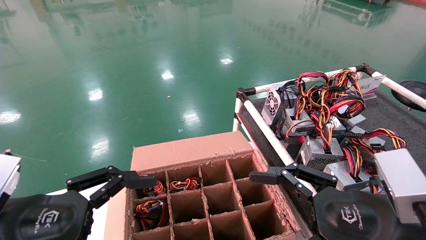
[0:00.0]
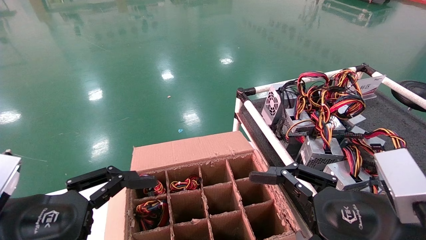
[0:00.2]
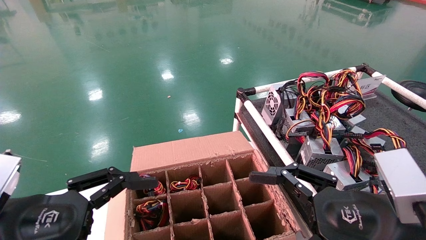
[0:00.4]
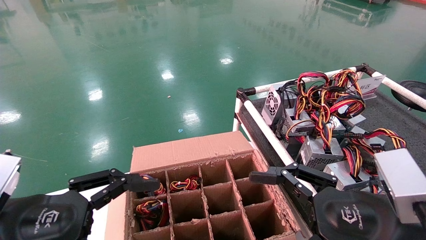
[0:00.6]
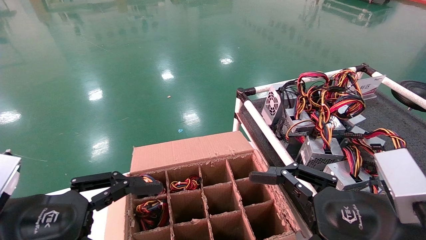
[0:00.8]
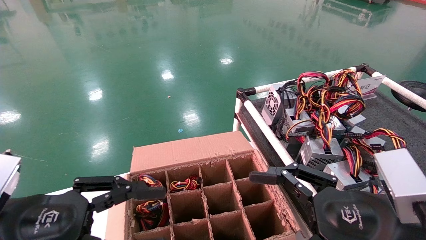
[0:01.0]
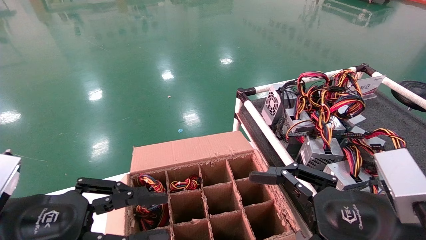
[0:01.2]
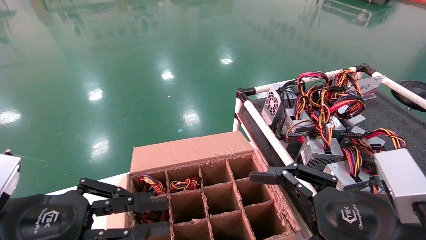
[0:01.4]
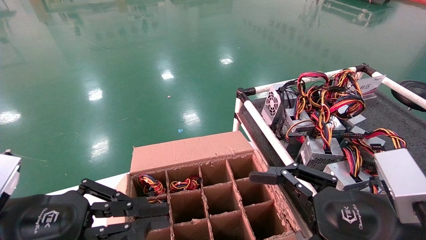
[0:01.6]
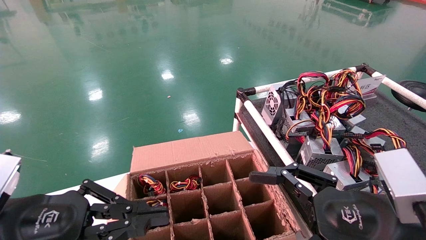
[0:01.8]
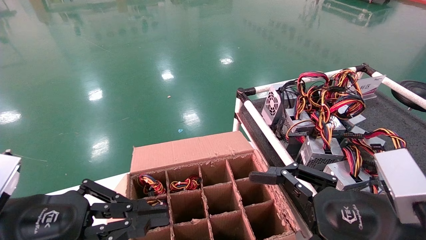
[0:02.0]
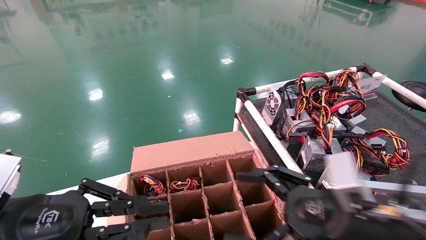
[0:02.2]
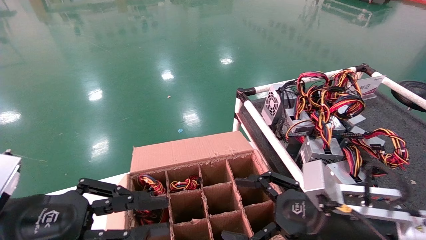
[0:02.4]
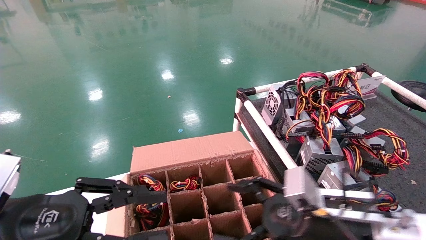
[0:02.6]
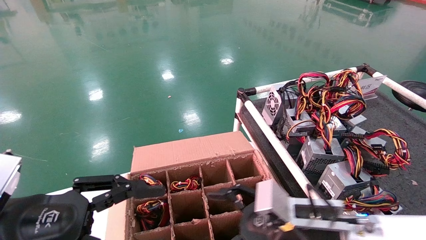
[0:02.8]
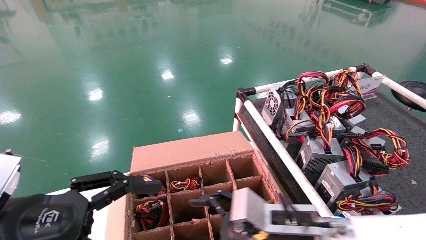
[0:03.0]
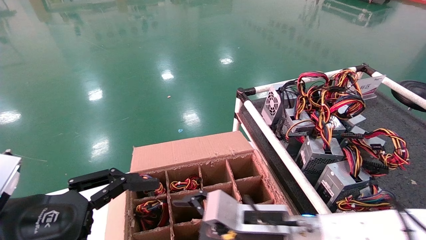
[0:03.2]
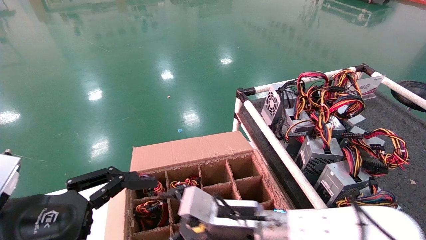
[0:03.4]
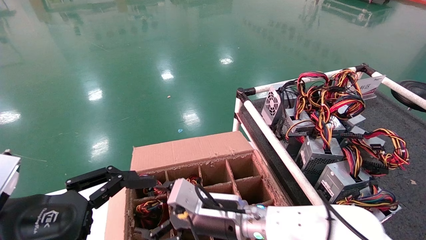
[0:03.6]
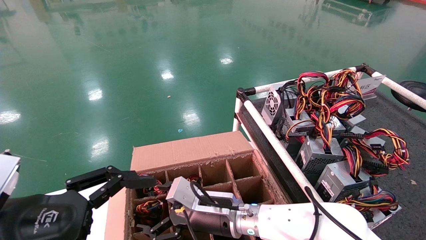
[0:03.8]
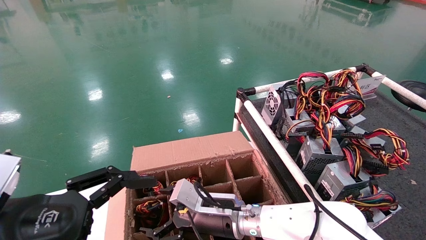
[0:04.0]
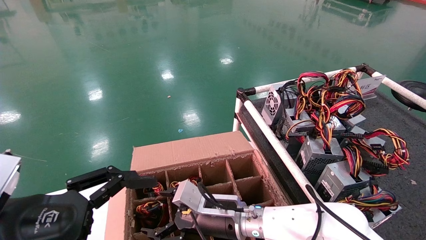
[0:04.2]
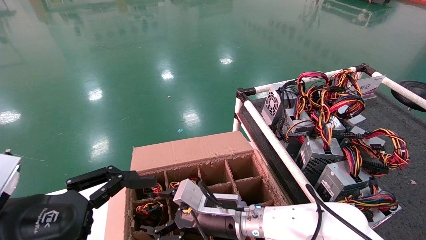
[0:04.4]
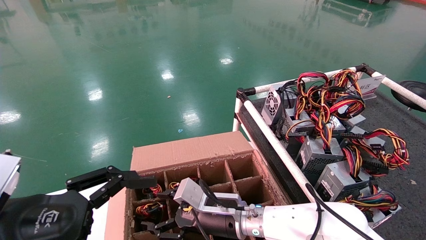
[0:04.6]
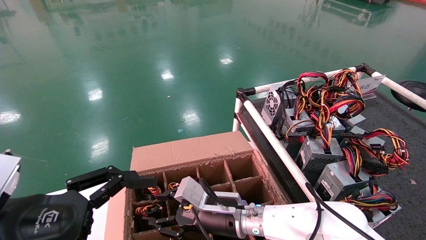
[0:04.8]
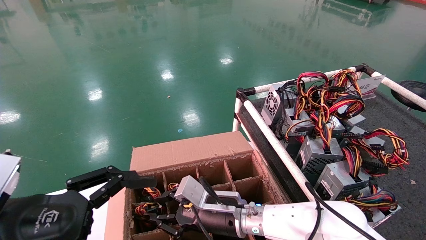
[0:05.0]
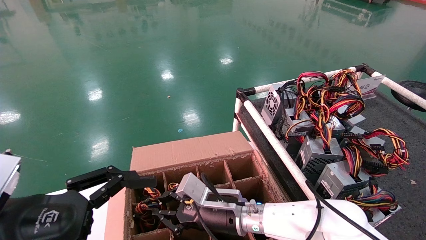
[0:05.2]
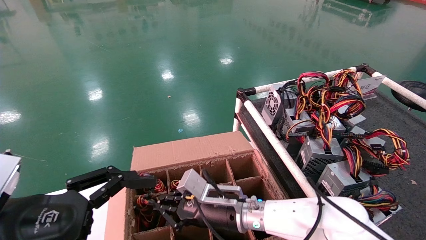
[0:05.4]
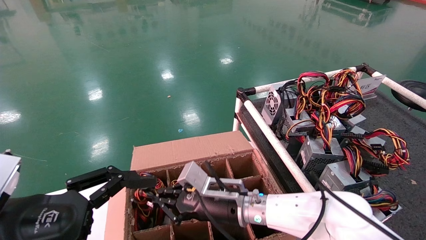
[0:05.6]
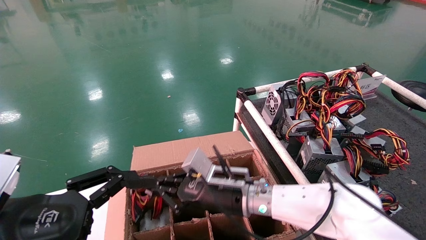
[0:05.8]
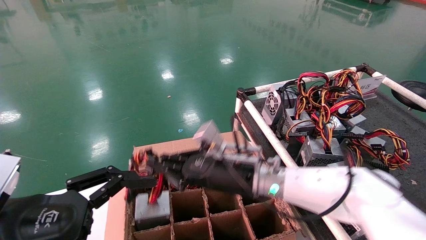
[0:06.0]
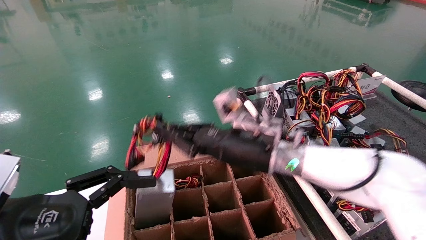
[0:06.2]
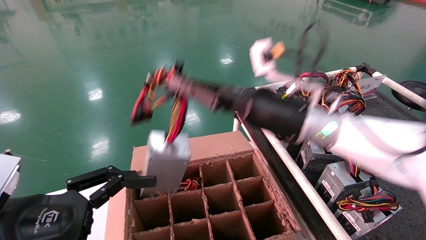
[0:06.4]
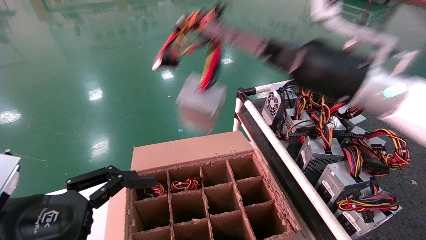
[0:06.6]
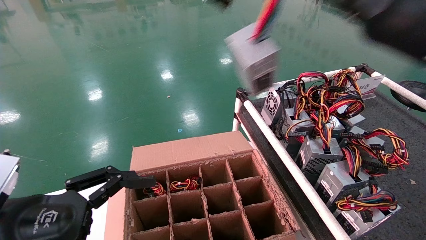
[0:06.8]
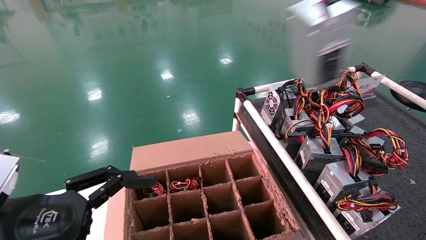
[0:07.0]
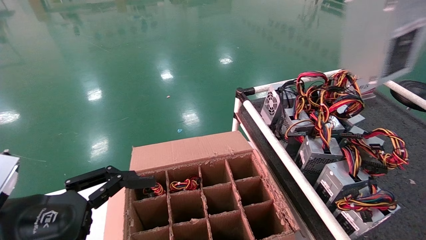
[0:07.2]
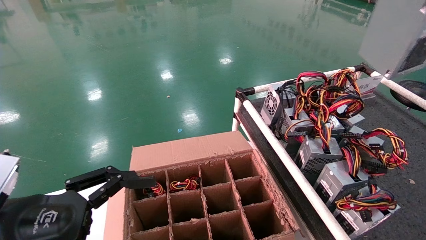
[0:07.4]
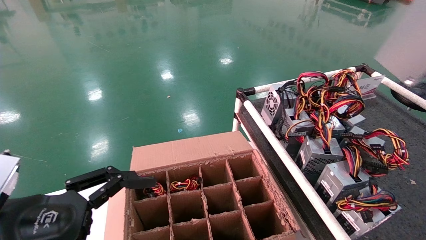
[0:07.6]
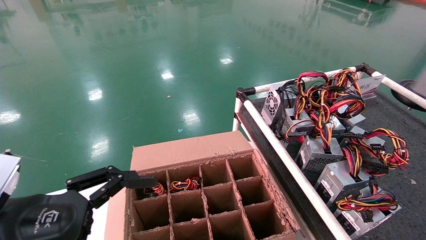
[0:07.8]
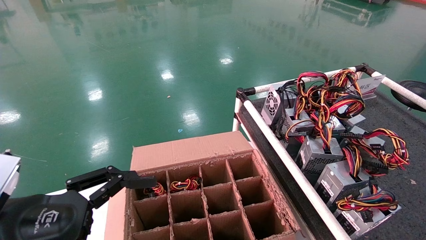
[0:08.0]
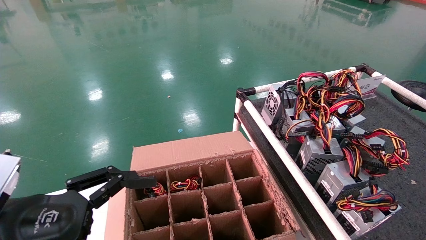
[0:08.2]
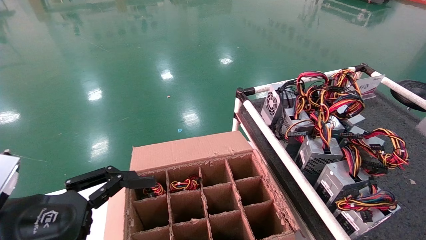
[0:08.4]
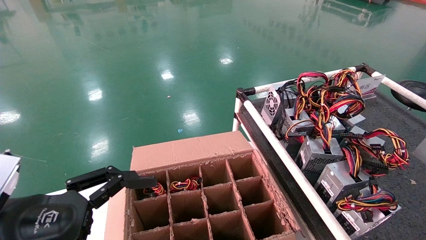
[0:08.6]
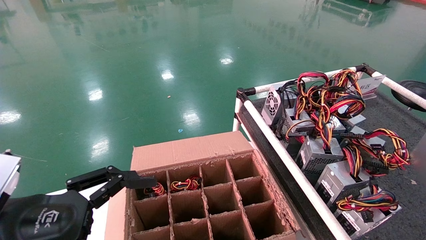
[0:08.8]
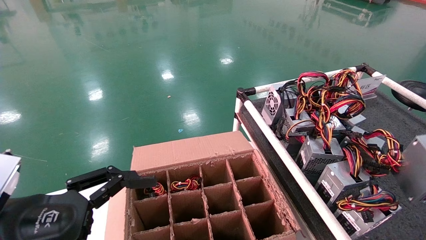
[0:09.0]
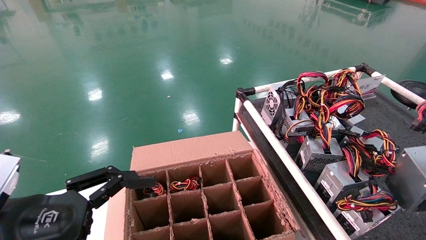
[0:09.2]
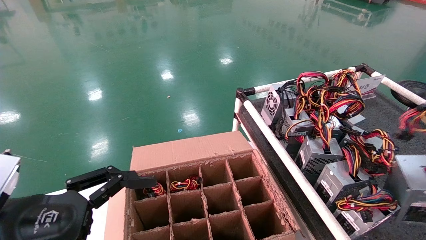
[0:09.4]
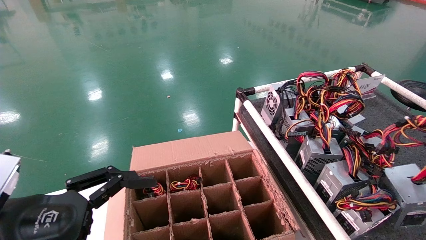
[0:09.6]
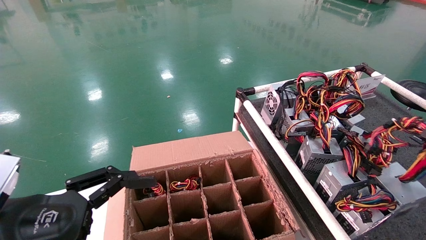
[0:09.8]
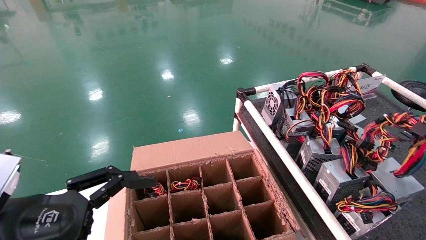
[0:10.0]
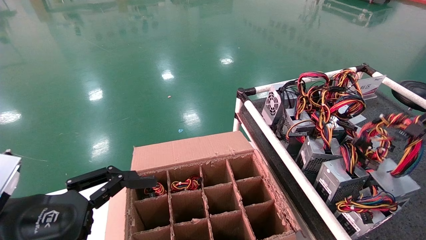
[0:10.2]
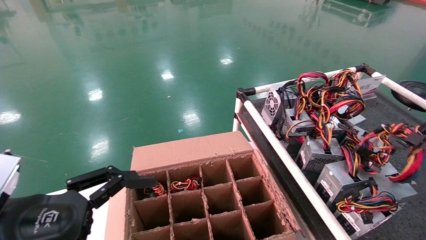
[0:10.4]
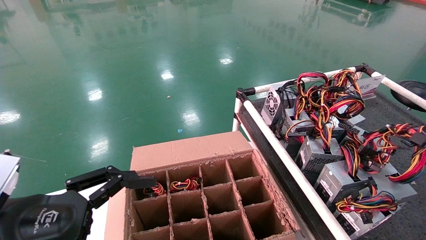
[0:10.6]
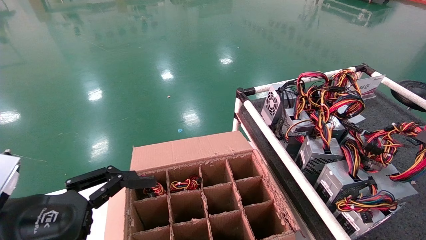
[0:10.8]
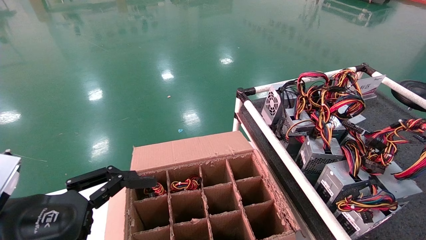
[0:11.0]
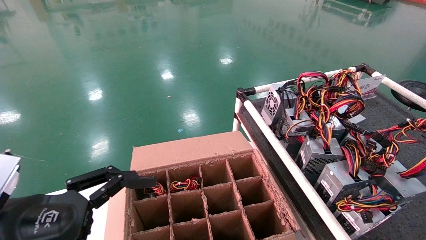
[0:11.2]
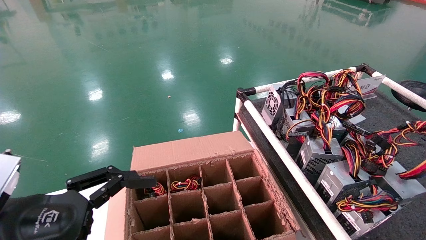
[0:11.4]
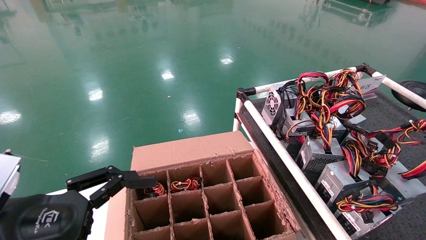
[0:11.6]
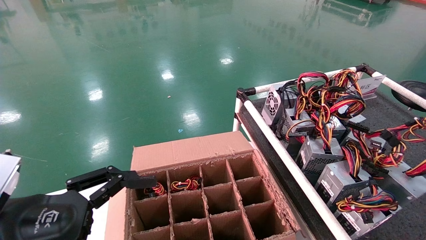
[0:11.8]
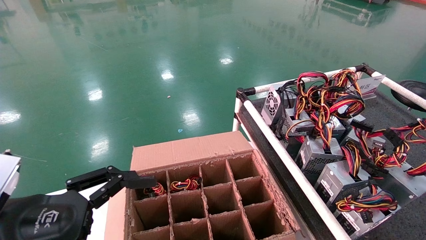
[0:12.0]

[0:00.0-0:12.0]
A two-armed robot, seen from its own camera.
Step, 0:02.4 to 0:05.6: Grab and lift the power supply from the large box.
0:00.0 to 0:01.6: The left gripper closes up.
0:01.6 to 0:03.0: The right gripper is displaced to the left, forward and downward by roughly 15 cm, while the left gripper opens its fingers.
0:03.0 to 0:04.4: The left gripper opens up. The right gripper moves to the left and forward, approximately 15 cm.
0:04.4 to 0:06.0: The right gripper is displaced upward by about 10 cm, and closes up.
0:06.0 to 0:07.6: The right gripper shifts approximately 50 cm to the right, backward and upward.
0:07.6 to 0:09.0: The right gripper heads downward, covering some 20 cm.
0:09.0 to 0:10.4: The right gripper shifts some 15 cm forward and downward.
0:10.4 to 0:12.0: The grippers make only small movements.

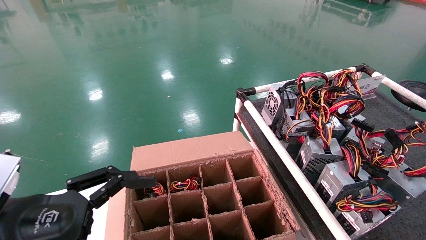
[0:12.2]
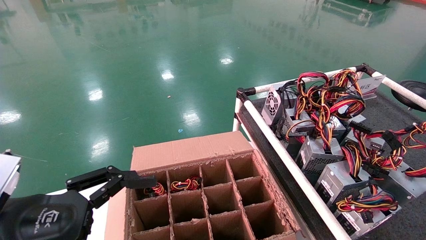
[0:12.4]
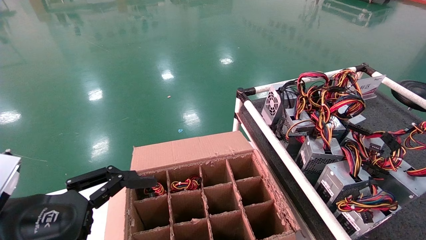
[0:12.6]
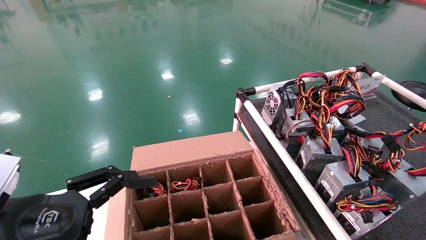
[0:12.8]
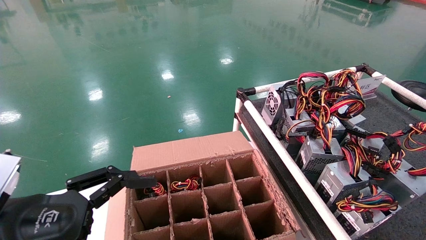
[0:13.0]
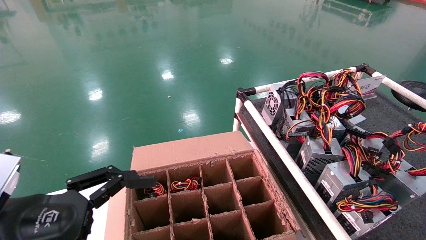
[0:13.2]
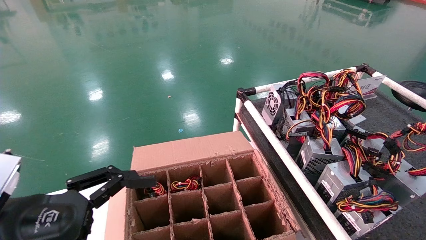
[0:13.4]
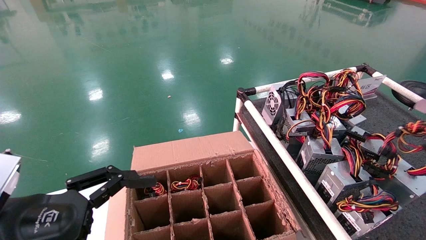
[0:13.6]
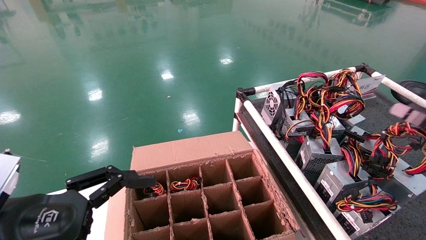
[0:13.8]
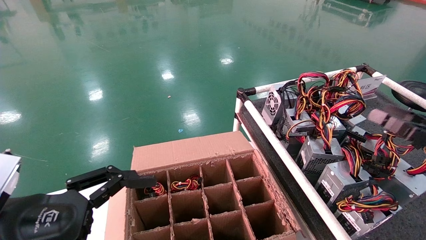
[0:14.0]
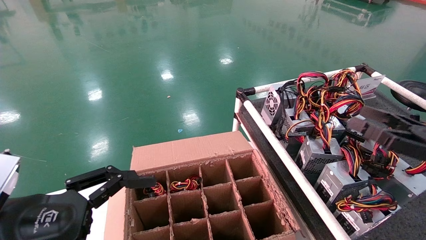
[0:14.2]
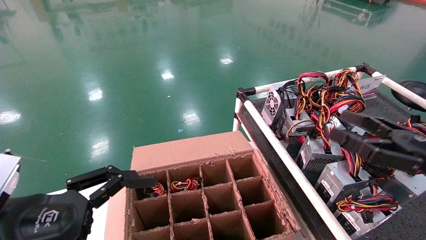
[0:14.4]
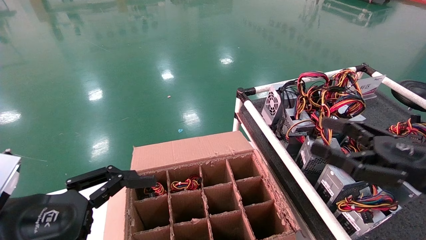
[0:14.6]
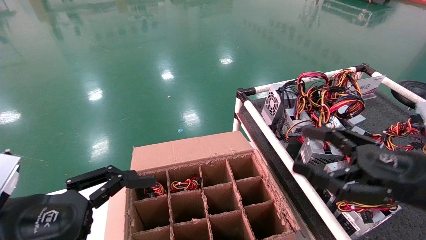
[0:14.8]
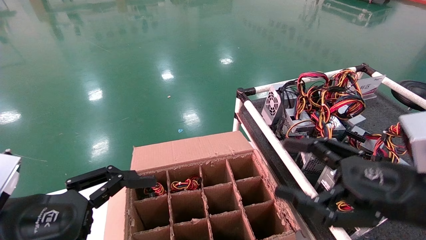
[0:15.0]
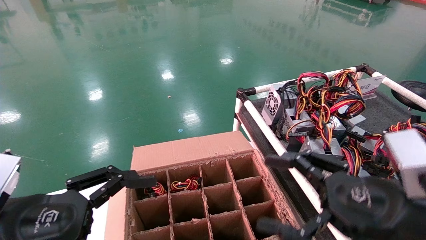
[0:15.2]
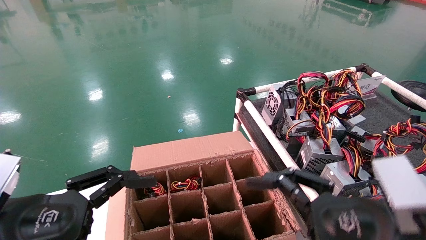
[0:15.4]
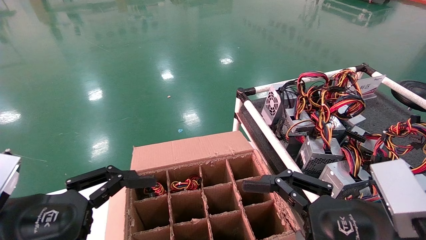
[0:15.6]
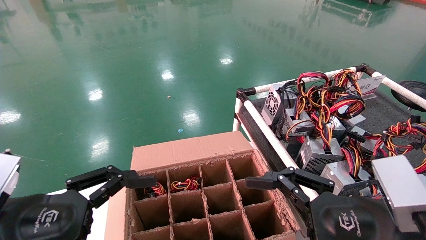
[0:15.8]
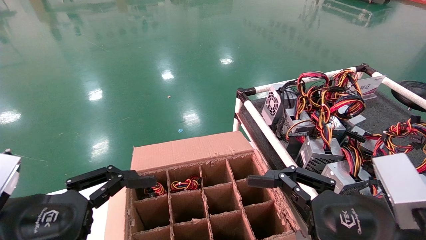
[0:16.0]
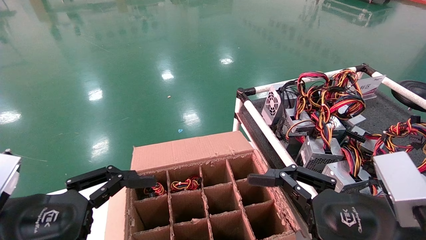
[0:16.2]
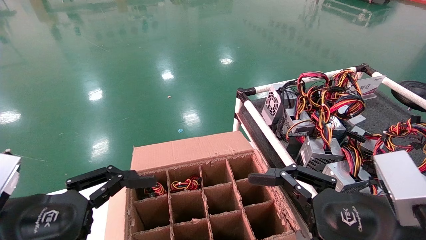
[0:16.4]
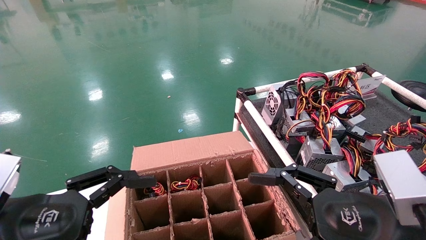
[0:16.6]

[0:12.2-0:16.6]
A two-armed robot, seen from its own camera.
0:12.2 to 0:13.6: The right gripper is displaced to the left by approximately 5 cm, and opens up.
0:13.6 to 0:15.2: The right gripper heads to the left, covering approximately 25 cm.
0:15.2 to 0:16.6: The grippers stay close to where they were, moving slightly.
